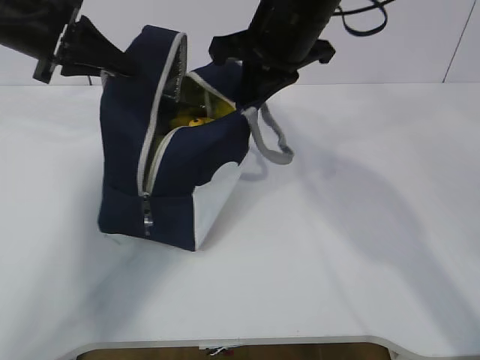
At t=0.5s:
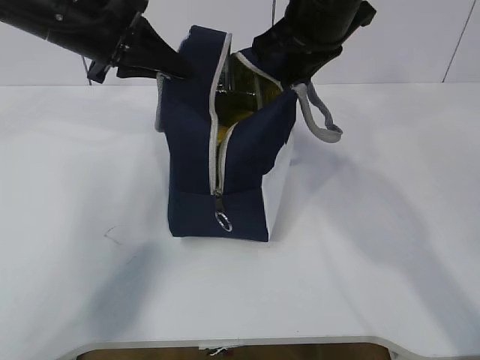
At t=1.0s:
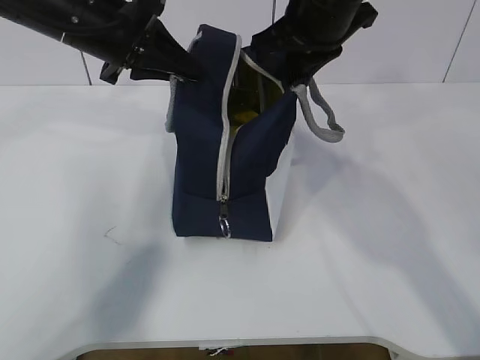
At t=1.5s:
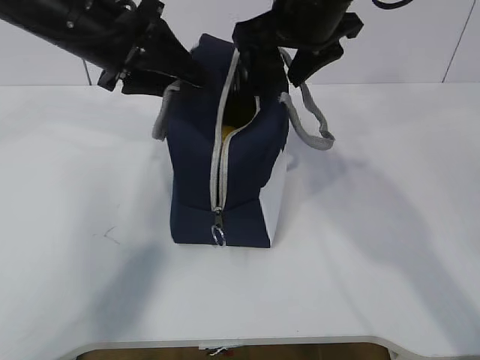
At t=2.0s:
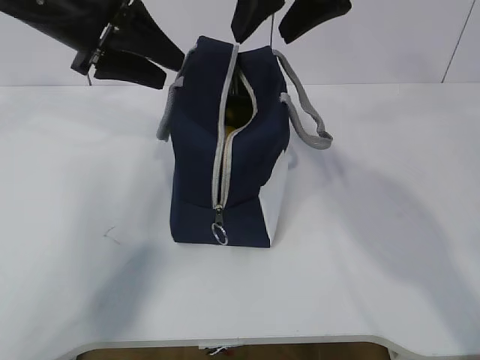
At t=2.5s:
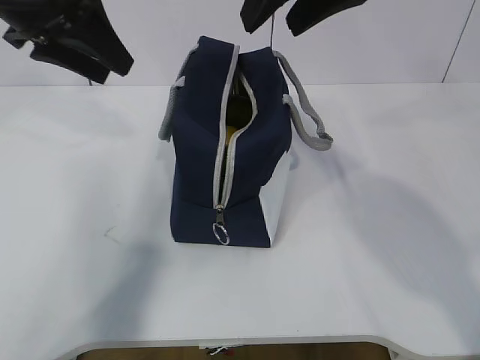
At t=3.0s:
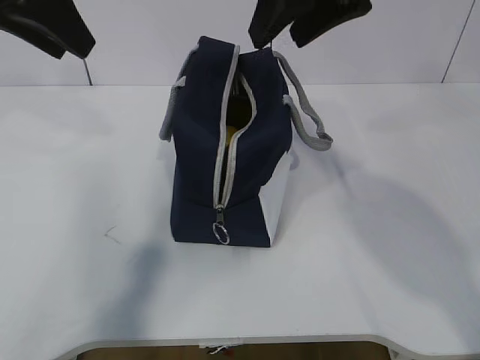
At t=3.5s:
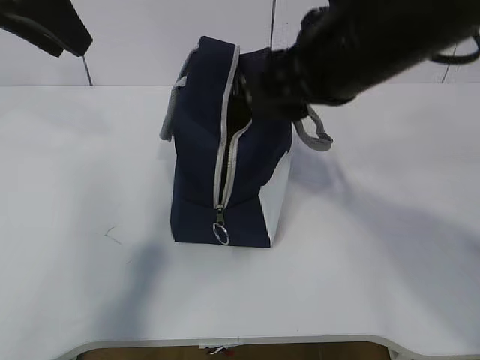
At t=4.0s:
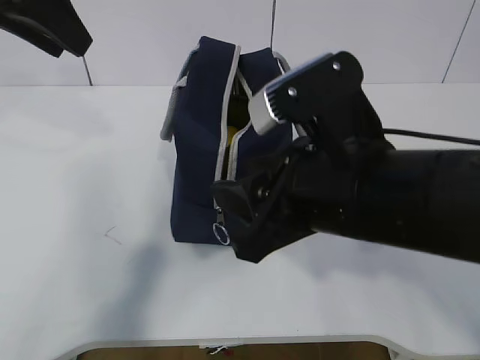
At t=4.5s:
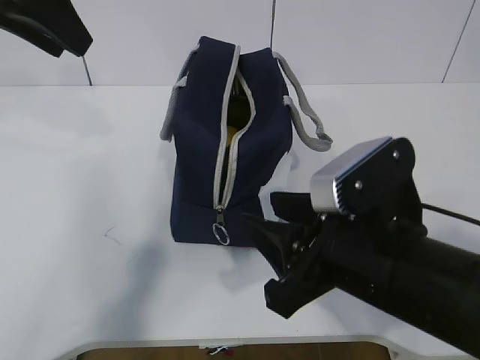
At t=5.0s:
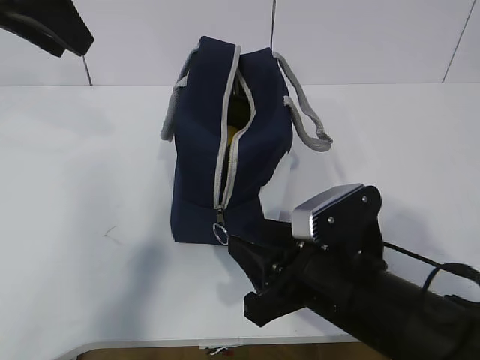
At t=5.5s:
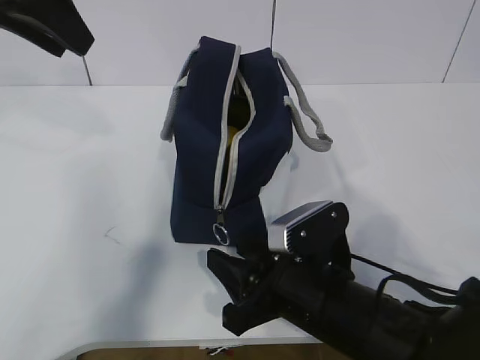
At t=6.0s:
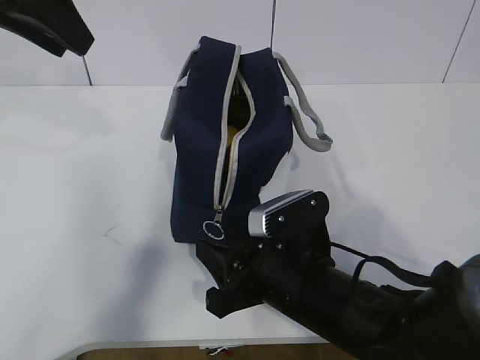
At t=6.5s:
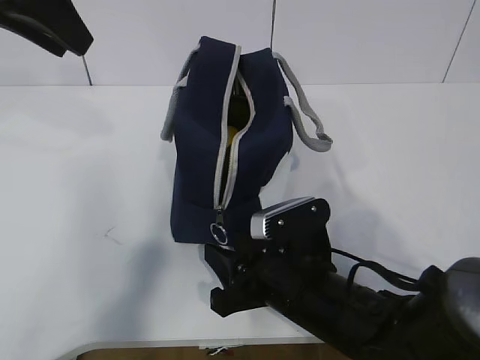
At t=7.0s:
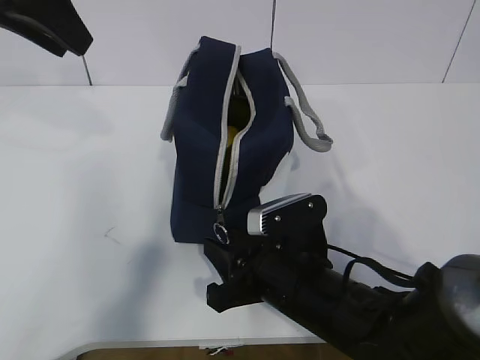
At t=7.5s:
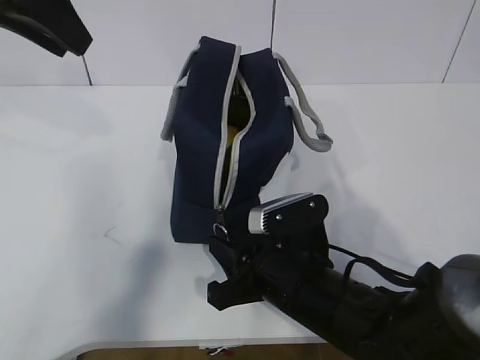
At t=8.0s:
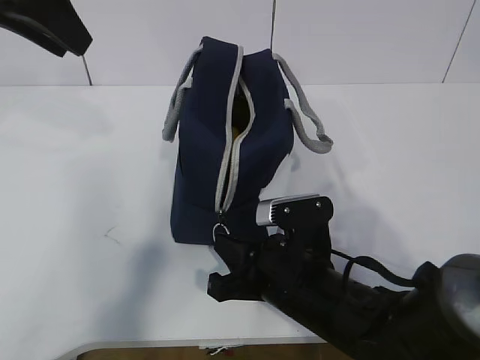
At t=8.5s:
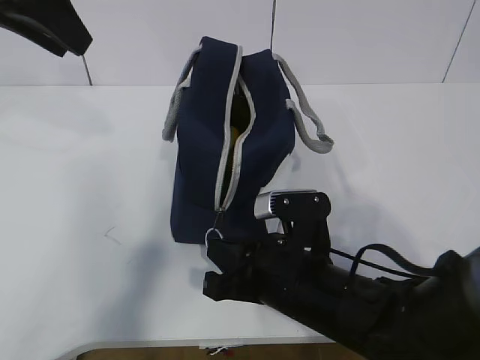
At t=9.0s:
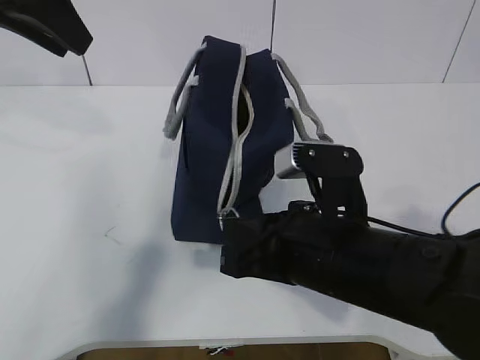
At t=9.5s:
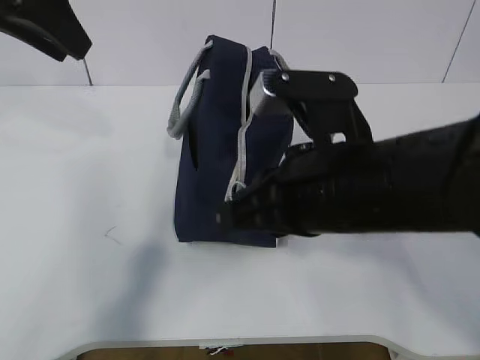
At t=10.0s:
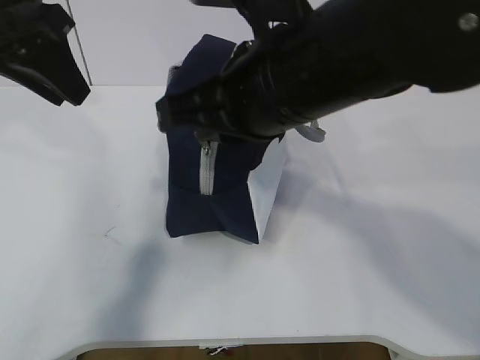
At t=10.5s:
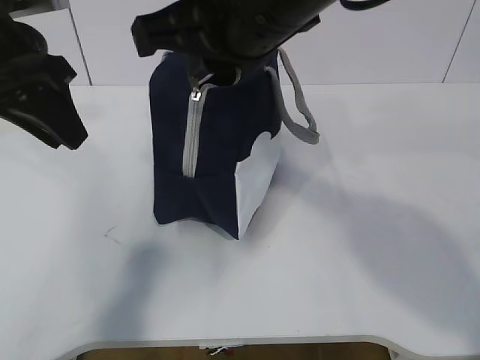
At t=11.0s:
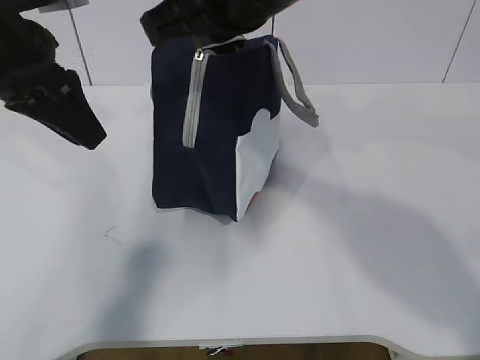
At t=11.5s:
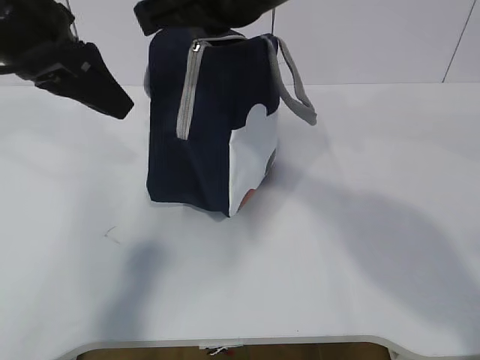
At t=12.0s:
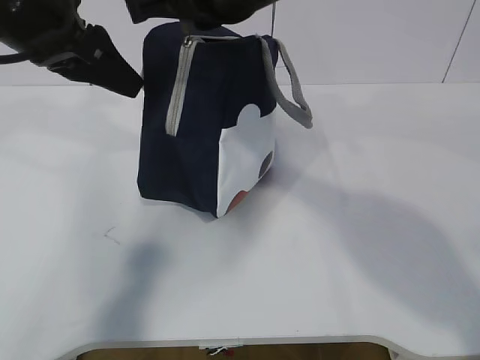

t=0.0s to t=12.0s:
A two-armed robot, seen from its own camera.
Step, t=0.0s to t=8.0s: Grab the lunch bag with your left hand.
t=0.0s to t=2.0s: The right gripper is displaced upward by some 10 cm, and opens up. The left gripper shifts about 5 cm to the right, and opens.
t=2.0s to t=4.0s: The left gripper is displaced upward and backward by about 10 cm. The right gripper is displaced backward and downward by about 20 cm.
t=4.0s to t=6.0s: The right gripper shifts about 15 cm downward.
t=6.0s to t=8.0s: The right gripper closes.
t=8.0s to t=10.0s: The right gripper shifts approximately 20 cm upward.
t=10.0s to t=12.0s: The right gripper shifts roughly 10 cm upward and forward.

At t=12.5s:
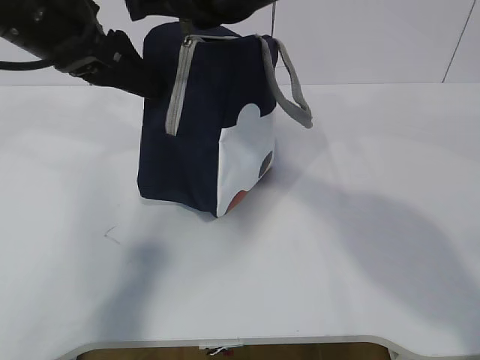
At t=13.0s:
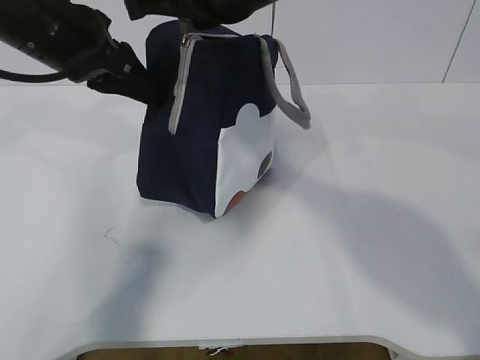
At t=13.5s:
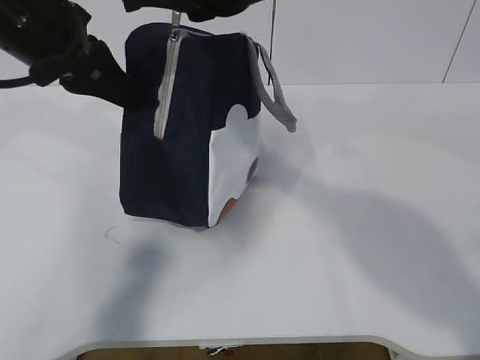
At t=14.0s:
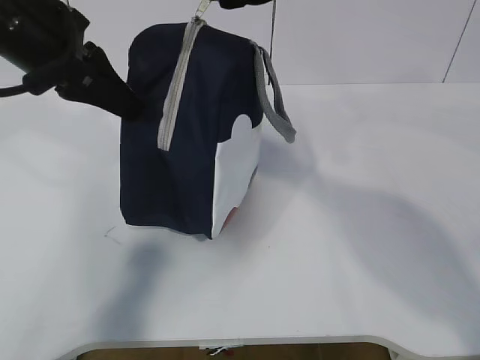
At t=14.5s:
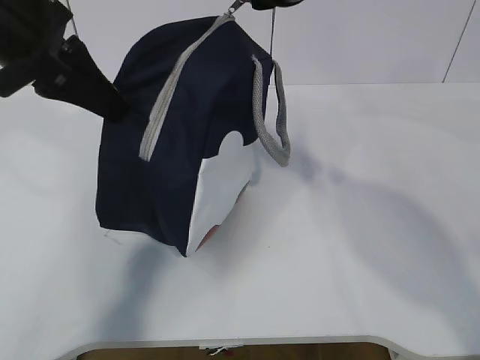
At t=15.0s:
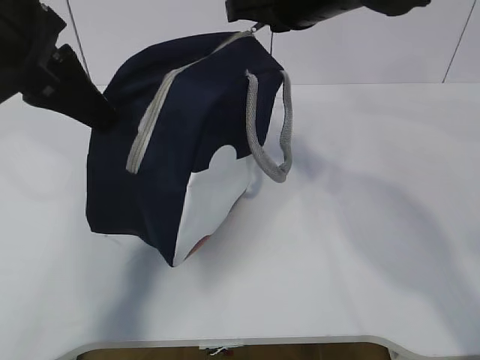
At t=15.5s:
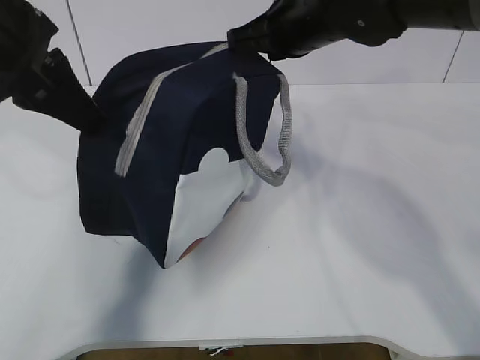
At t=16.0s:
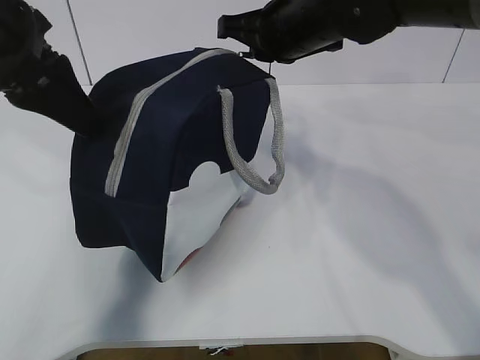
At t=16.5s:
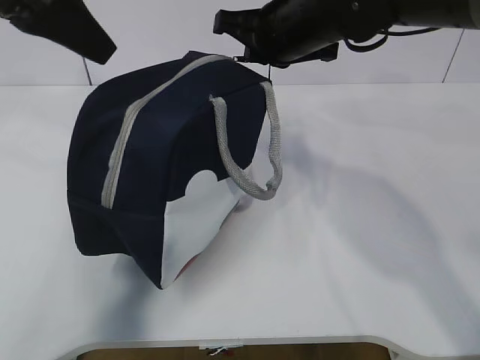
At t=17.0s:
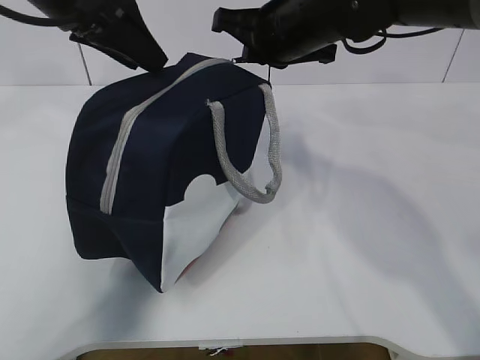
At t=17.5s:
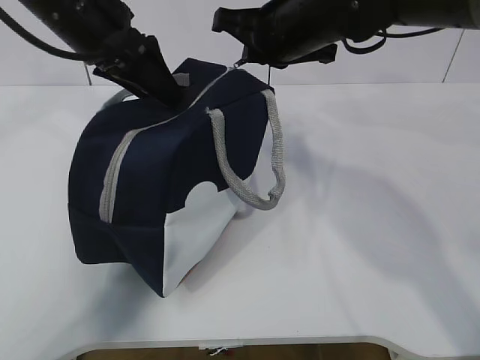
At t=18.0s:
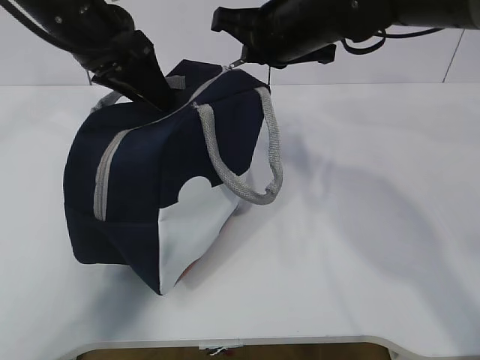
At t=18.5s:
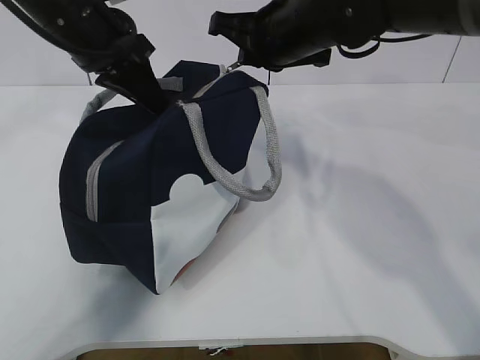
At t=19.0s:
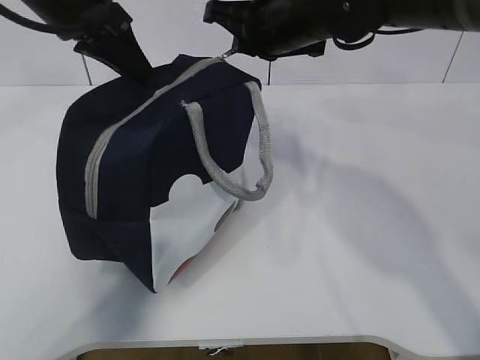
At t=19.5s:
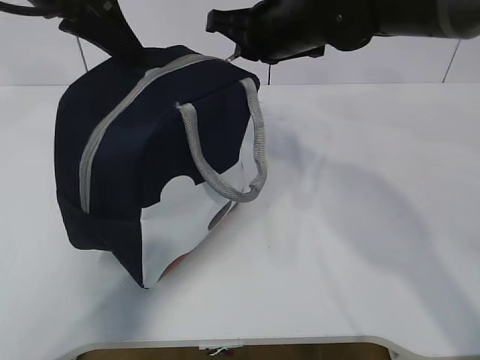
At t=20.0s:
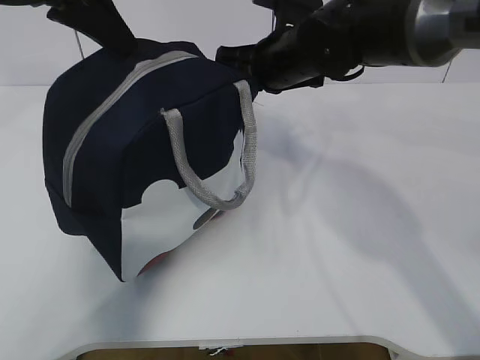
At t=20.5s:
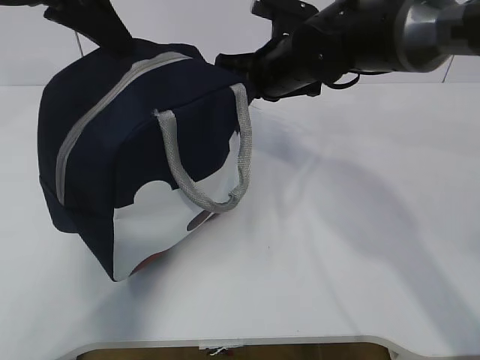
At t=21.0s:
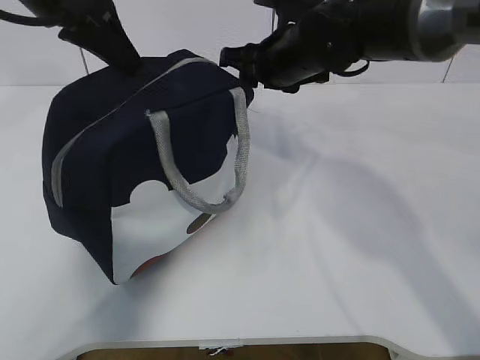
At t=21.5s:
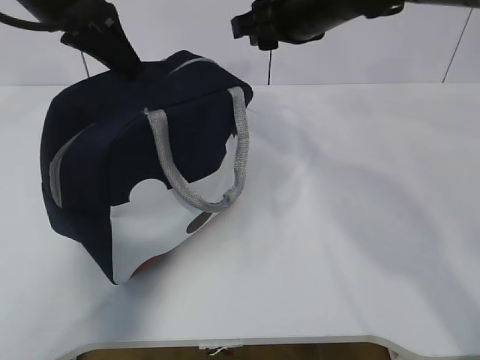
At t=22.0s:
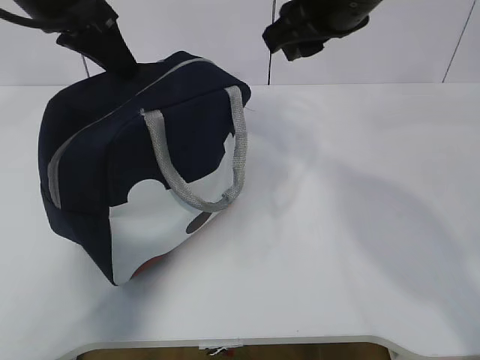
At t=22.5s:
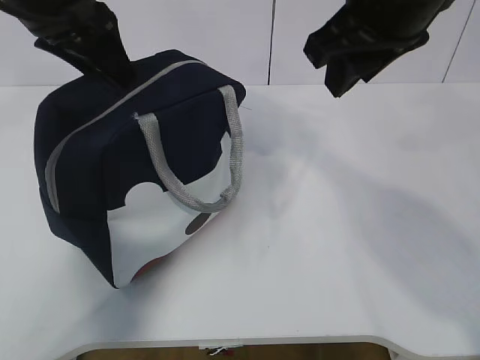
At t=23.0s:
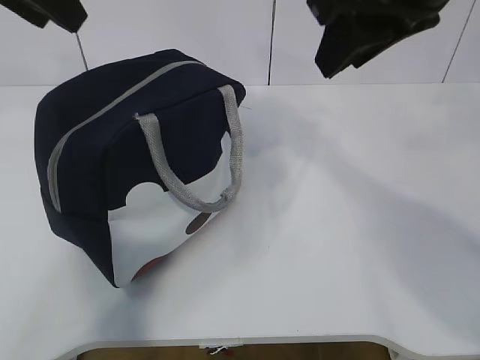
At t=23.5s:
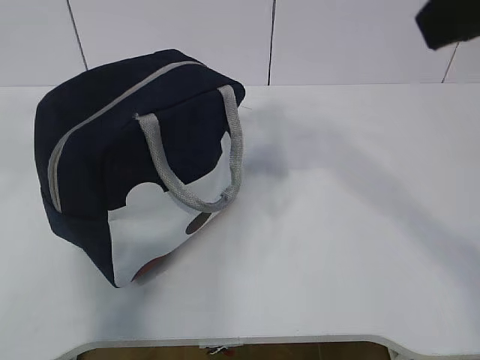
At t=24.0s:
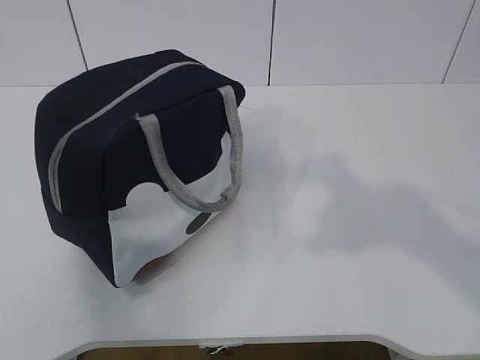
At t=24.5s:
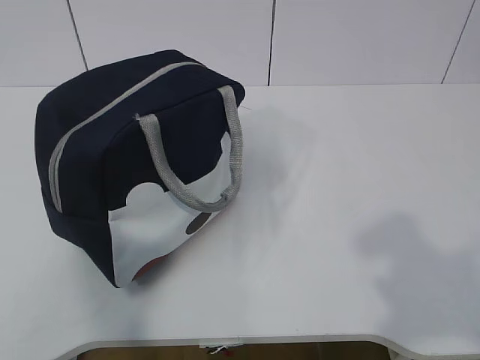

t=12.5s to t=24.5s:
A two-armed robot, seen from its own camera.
Step, t=12.5s to t=13.5s: Grab the lunch bag with your left hand.
t=12.5s to t=14.5s: The right gripper is displaced forward and to the right by roughly 10 cm. The left gripper closes its fingers.
t=14.5s to t=16.5s: The left gripper opens up. The right gripper heads downward, covering roughly 5 cm.
t=16.5s to t=18.5s: The left gripper goes roughly 10 cm downward and forward, and closes.
t=18.5s to t=20.5s: The left gripper is displaced upward by approximately 10 cm. The right gripper moves downward, roughly 5 cm.
t=20.5s to t=22.5s: The left gripper opens its fingers, while the right gripper is displaced backward and upward by about 20 cm, and opens up.
t=22.5s to t=24.5s: The left gripper moves backward, roughly 35 cm. The right gripper travels backward and to the right by roughly 30 cm.

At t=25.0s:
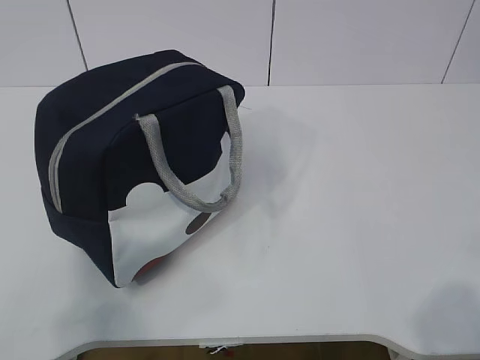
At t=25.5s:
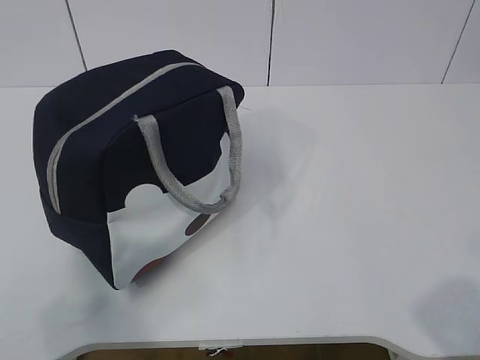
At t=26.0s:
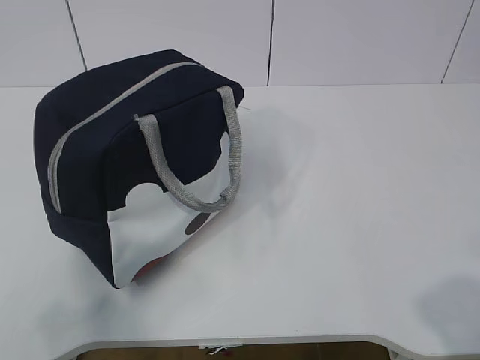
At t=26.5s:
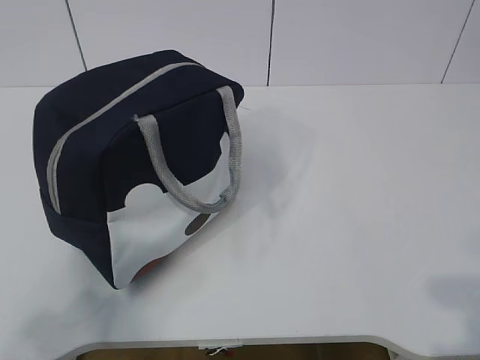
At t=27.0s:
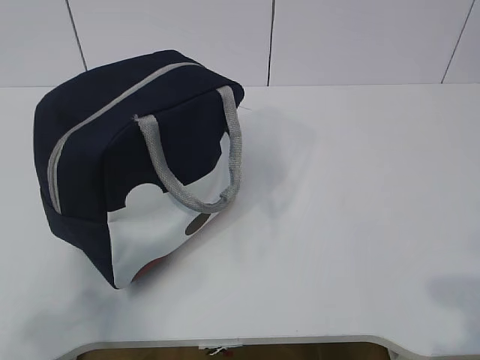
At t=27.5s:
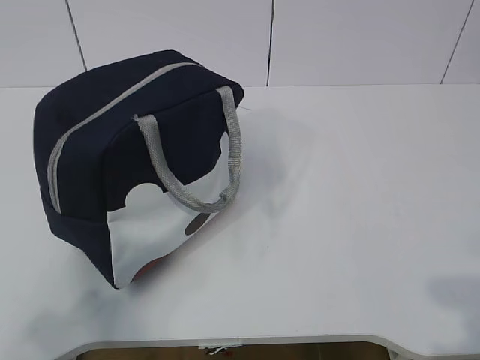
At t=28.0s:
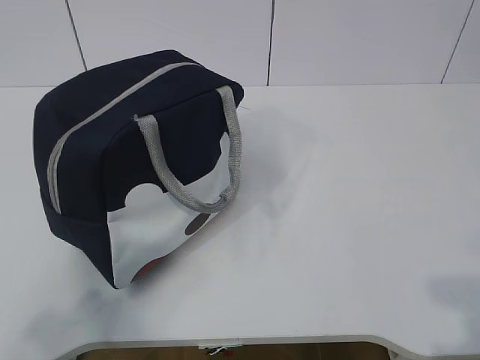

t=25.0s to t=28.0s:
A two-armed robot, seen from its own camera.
t=26.5s to t=28.0s: The two grippers keep their place.
